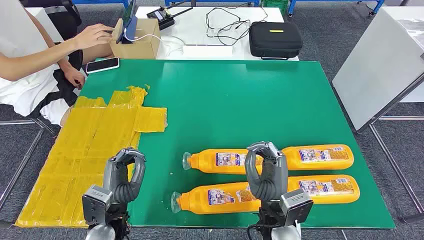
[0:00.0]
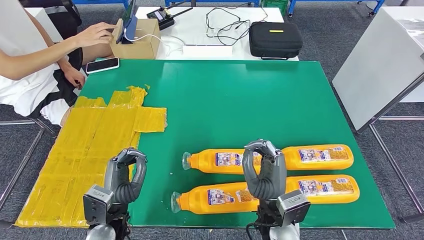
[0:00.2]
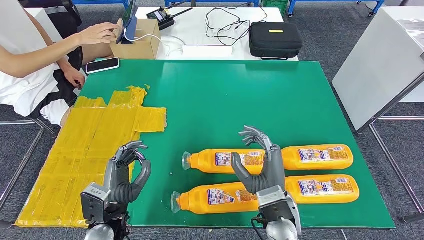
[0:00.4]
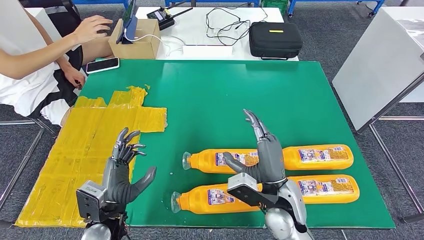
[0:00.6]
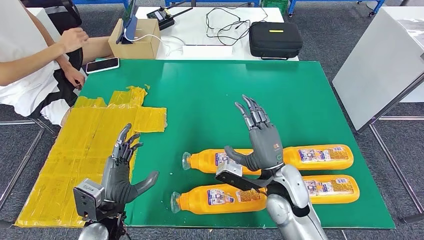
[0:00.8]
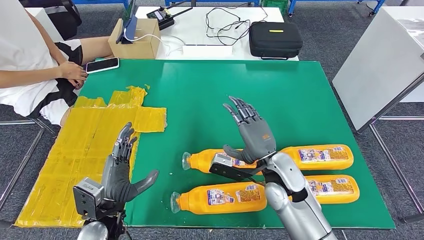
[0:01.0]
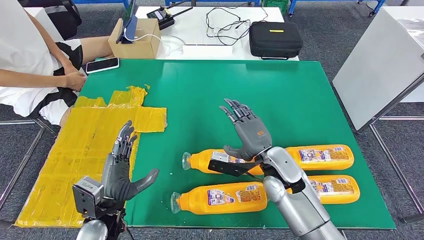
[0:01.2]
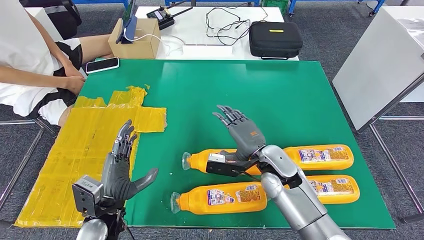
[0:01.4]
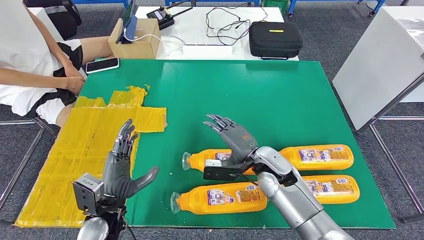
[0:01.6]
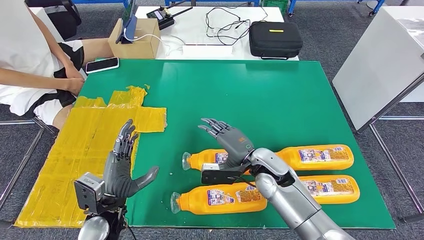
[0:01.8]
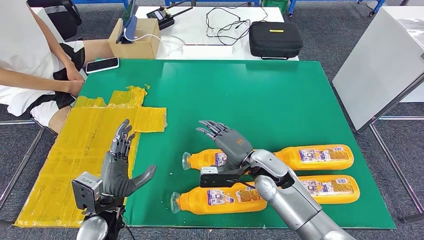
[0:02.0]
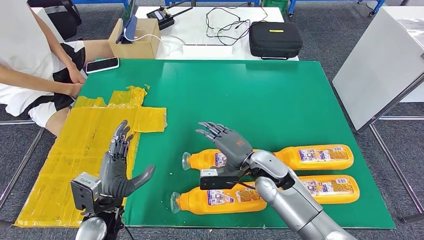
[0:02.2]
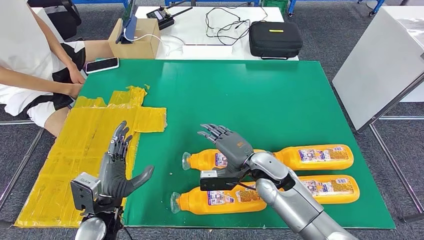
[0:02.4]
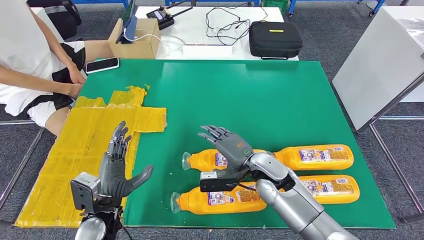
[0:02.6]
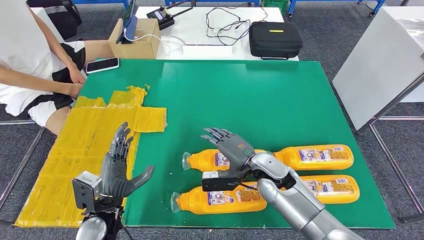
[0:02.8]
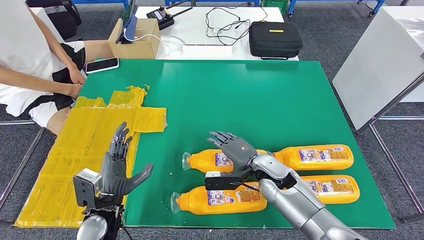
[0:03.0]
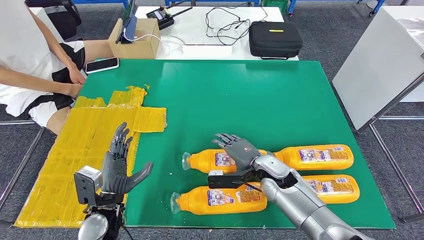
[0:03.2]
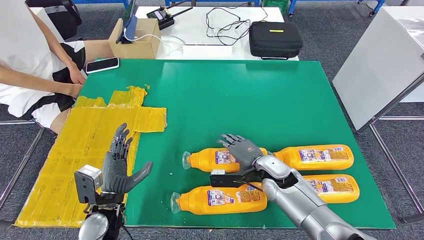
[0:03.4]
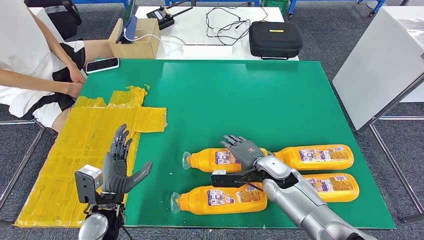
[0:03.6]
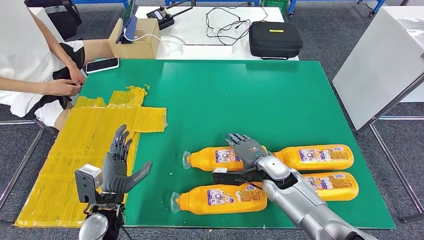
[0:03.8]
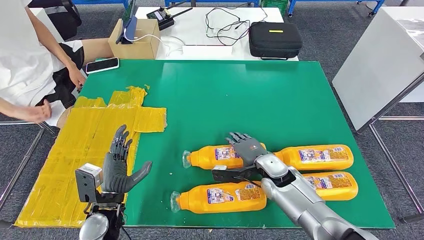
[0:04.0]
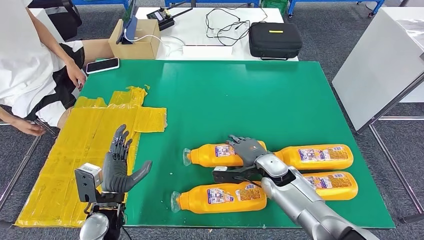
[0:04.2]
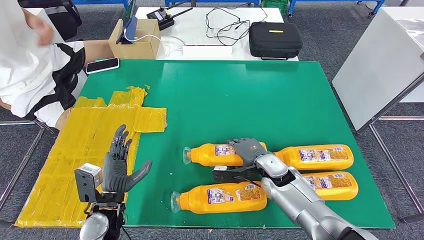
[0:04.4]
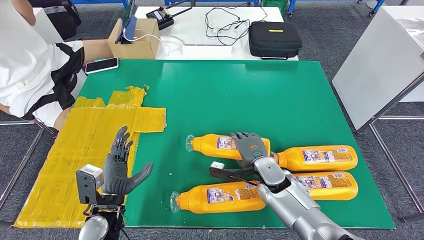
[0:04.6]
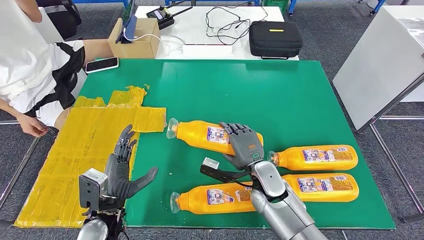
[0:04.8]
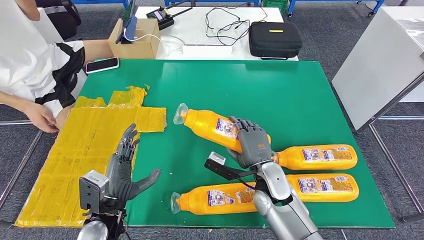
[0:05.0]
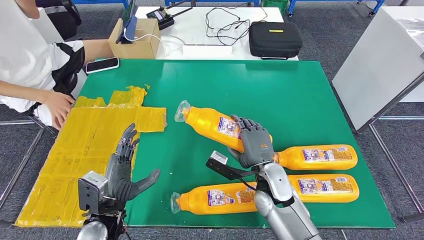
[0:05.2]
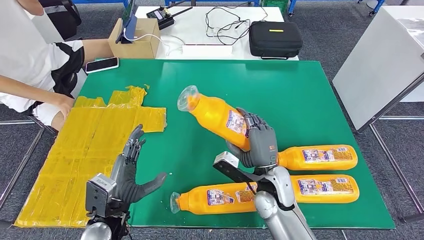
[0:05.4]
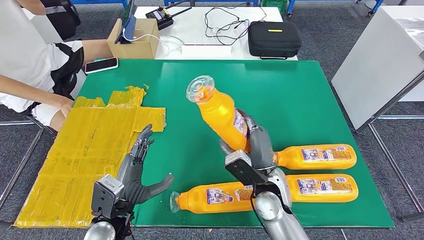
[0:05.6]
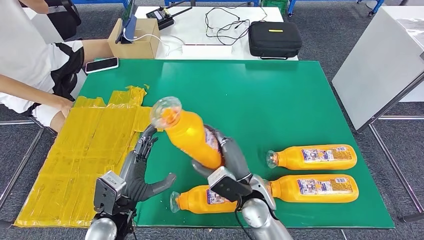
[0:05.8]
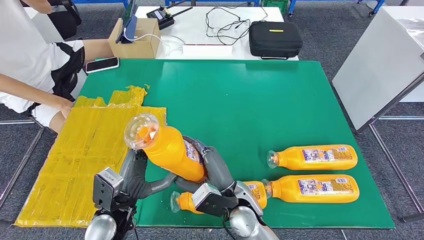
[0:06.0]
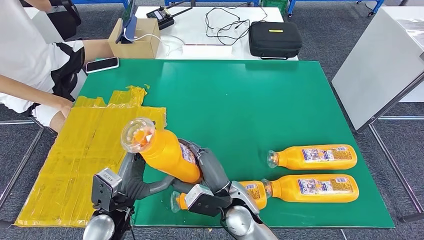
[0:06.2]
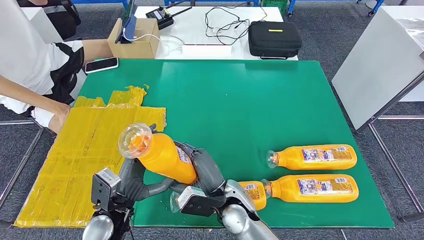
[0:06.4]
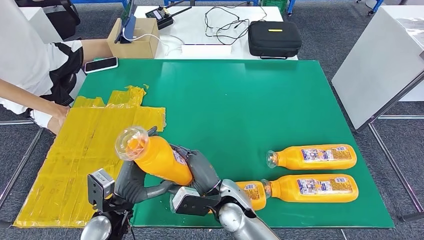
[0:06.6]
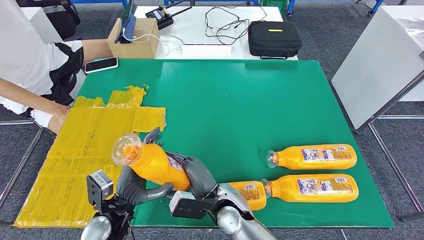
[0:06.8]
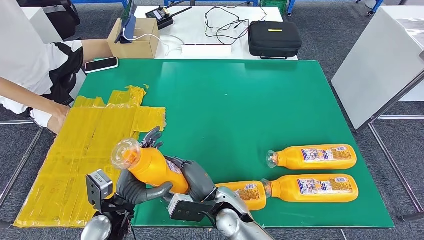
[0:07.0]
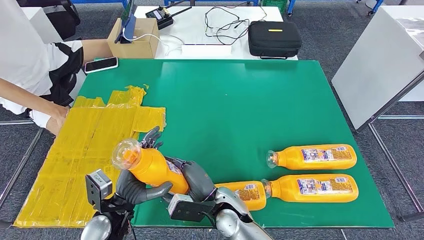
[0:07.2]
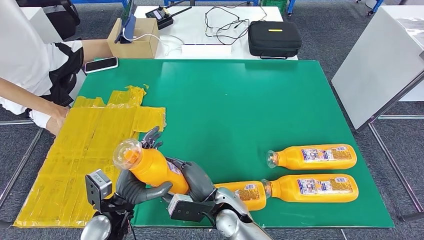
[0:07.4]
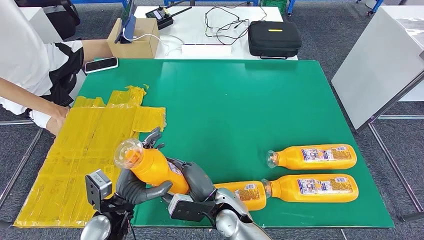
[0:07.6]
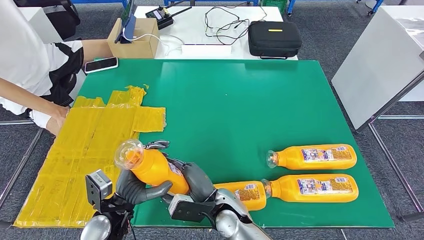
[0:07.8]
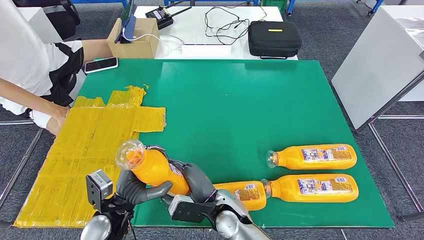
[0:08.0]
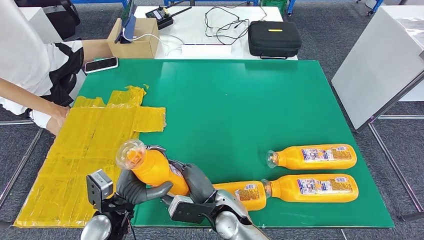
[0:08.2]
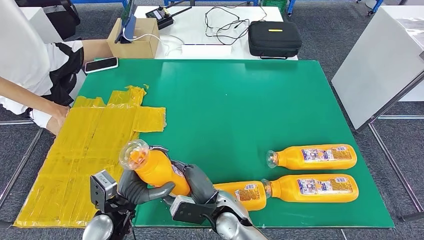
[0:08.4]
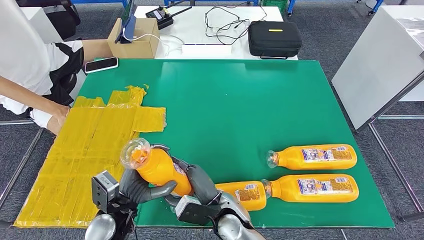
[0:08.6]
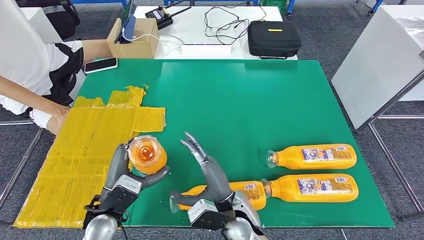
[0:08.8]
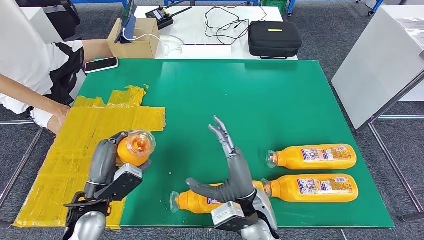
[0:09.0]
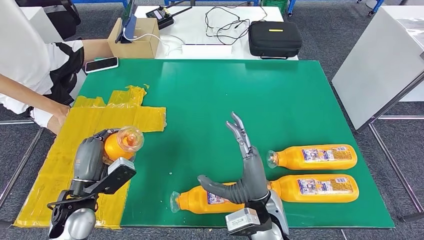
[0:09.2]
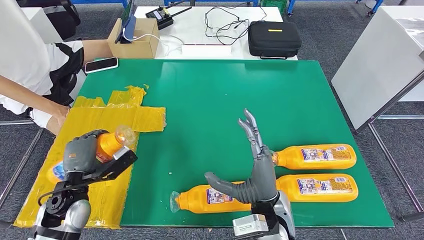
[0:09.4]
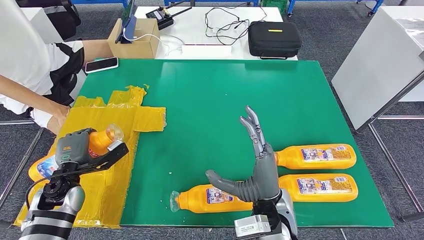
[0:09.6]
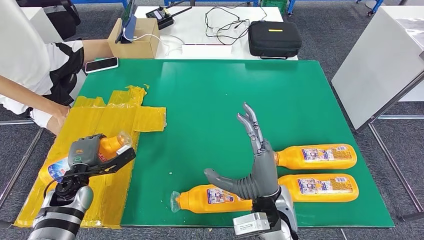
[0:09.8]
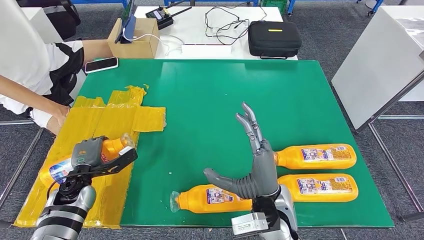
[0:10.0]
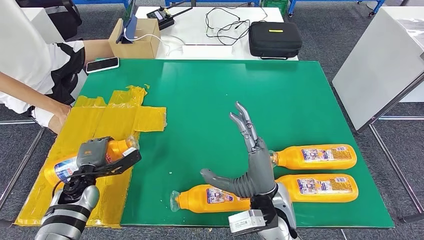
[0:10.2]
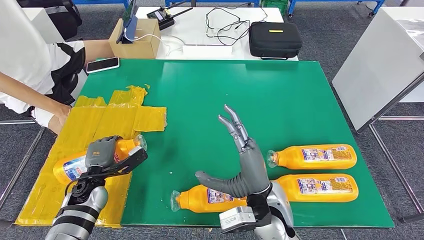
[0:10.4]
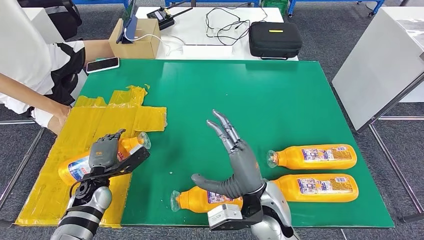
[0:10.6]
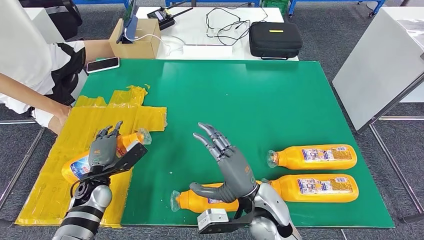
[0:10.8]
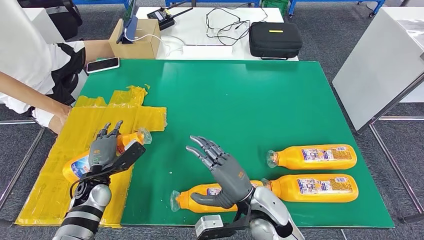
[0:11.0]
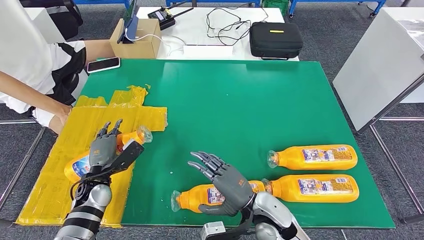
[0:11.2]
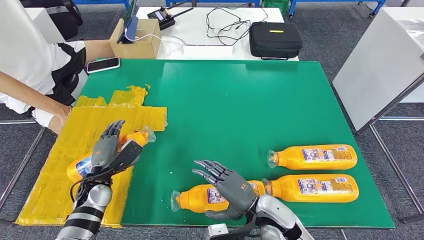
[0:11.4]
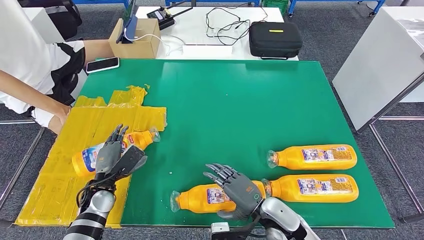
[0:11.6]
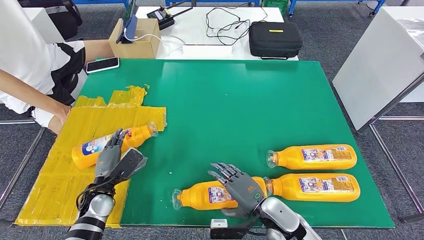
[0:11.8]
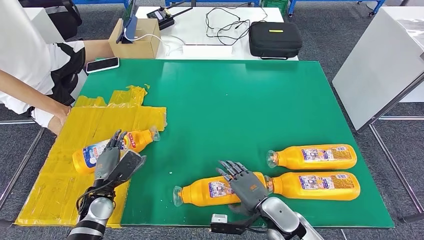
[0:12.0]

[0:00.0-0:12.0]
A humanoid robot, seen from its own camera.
Step, 0:00.0 to 0:06.6: Take the fast-moving consumer goods bottle from the table.
0:01.6 to 0:03.0: There are only small adjustments of the hands.
0:06.0 to 0:07.6: The right hand is displaced downward by approximately 5 cm.
0:07.6 to 0:09.0: The left hand shifts by roughly 5 cm; the right hand travels upward and to the right by approximately 10 cm.
0:09.0 to 0:10.4: The left hand heads downward, forward and to the left, covering some 15 cm.
0:10.4 to 0:12.0: The right hand heads downward and to the right, covering roughly 15 cm.

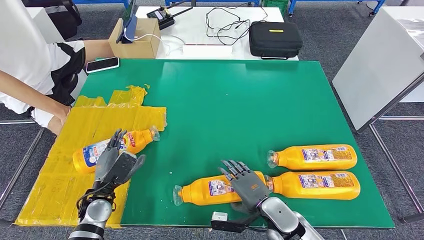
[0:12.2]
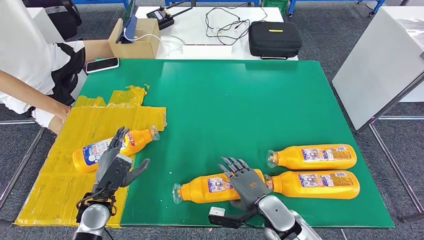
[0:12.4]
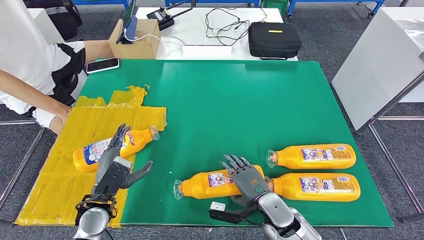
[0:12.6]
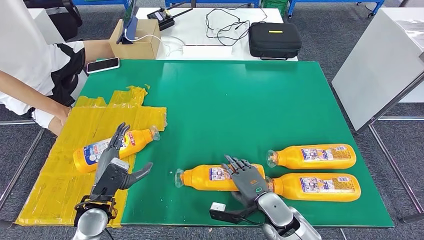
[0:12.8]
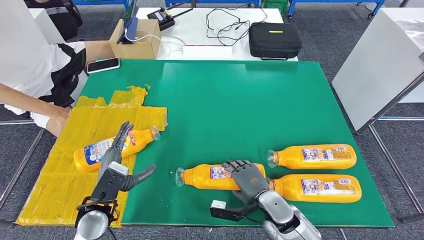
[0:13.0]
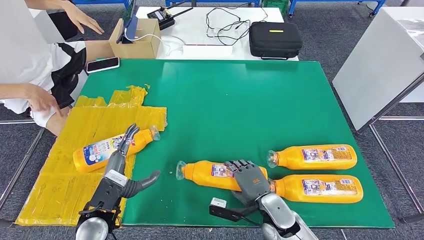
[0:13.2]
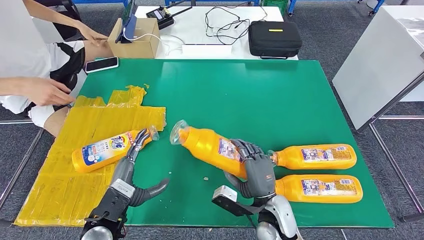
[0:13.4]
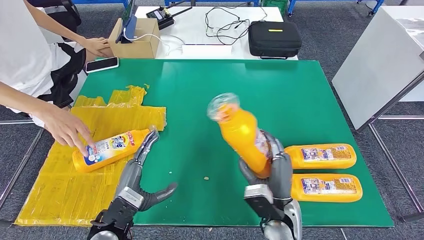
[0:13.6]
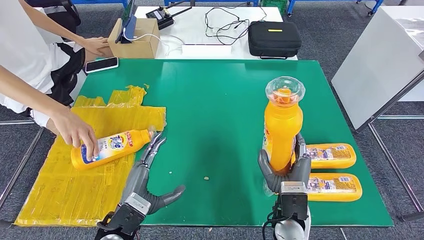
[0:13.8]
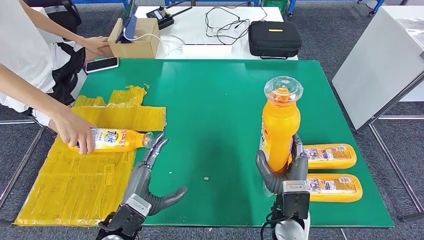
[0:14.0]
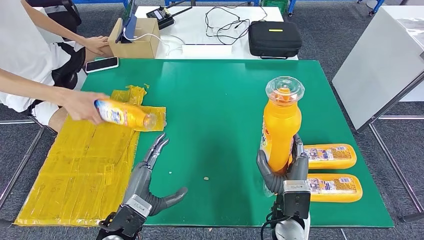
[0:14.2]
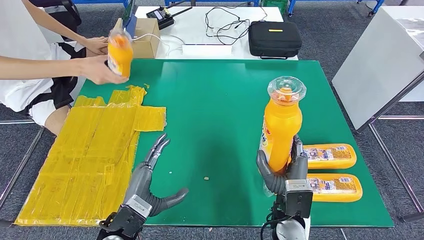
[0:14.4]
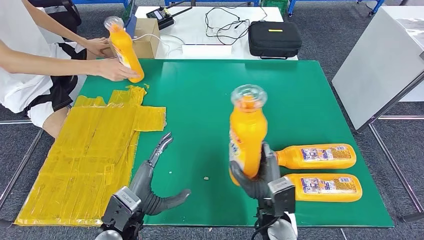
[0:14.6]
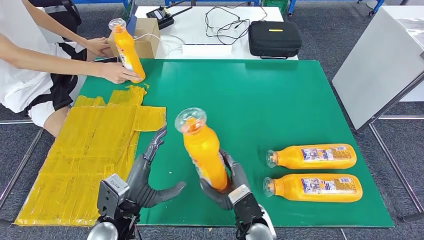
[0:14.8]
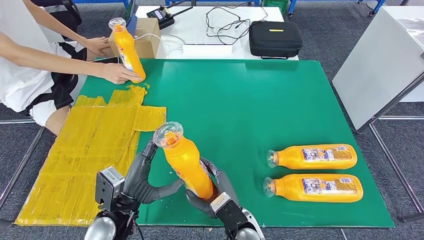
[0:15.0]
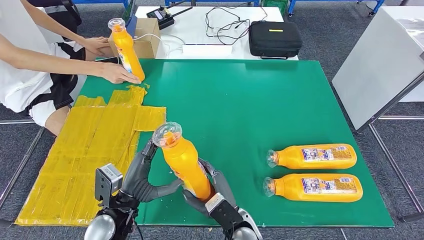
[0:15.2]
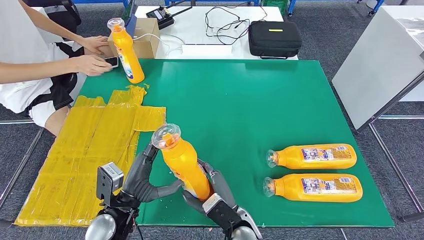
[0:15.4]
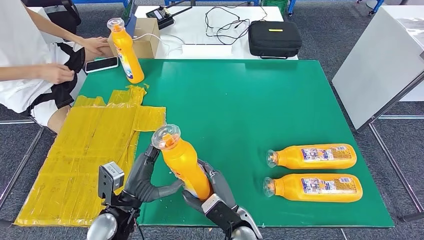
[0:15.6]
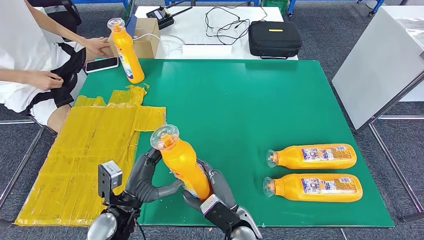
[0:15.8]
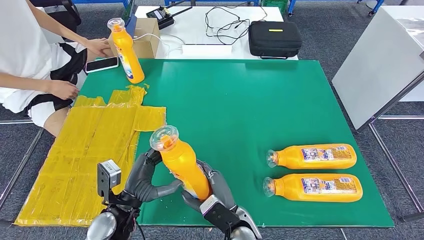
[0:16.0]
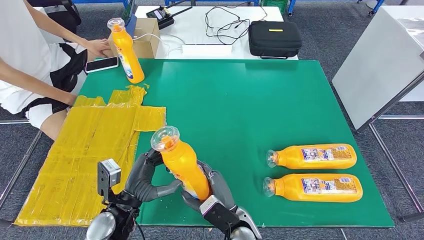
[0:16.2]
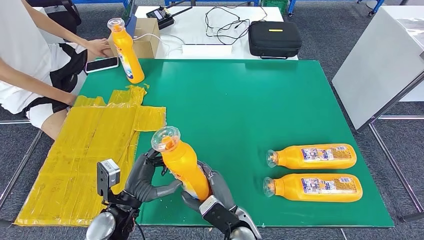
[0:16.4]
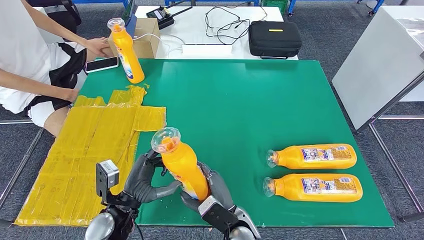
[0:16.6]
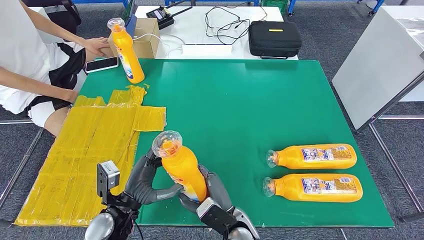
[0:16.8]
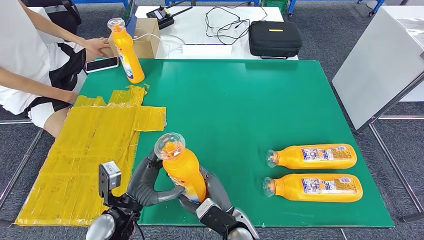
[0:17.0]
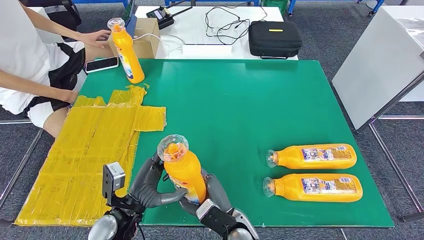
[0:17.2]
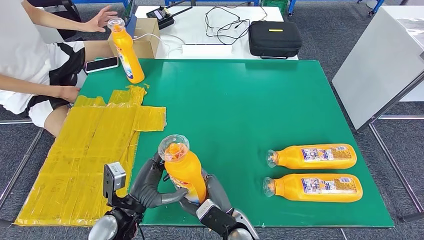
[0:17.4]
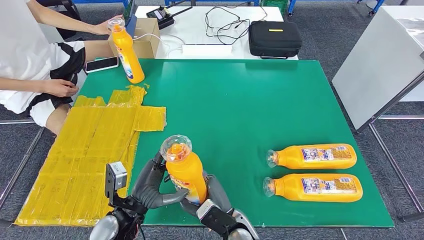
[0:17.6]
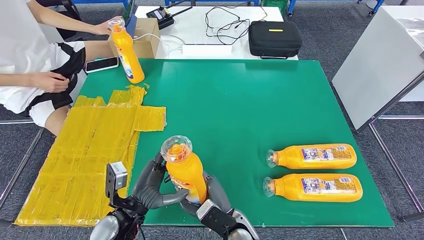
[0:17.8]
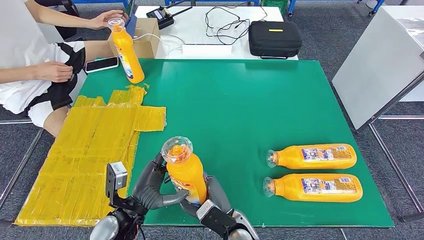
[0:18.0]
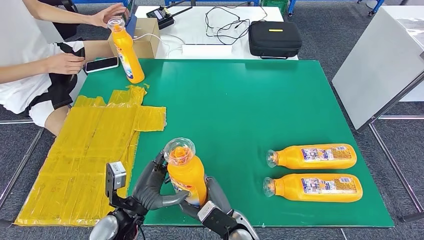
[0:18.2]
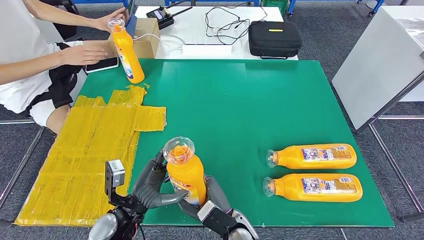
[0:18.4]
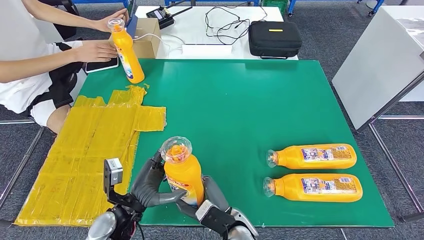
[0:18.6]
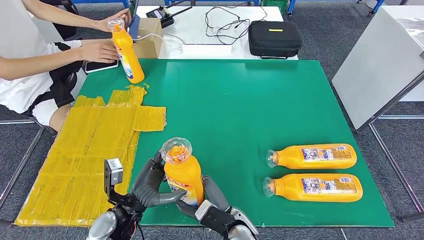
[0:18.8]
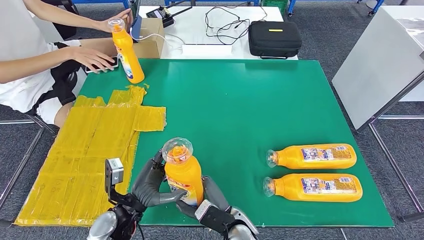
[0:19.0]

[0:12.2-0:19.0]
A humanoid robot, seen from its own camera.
Step, 0:13.0 to 0:16.8: Pick up the fast-moving consumer goods bottle from the table.
0:15.0 to 0:16.2: There are only small adjustments of the hands.
0:16.2 to 0:19.0: There are only small adjustments of the hands.
